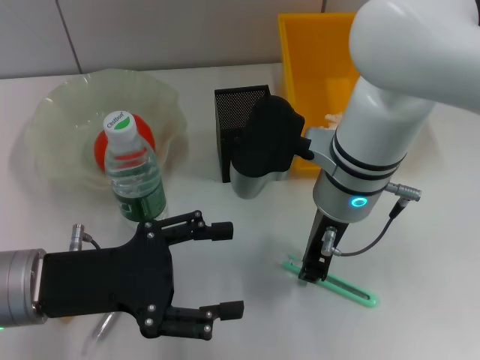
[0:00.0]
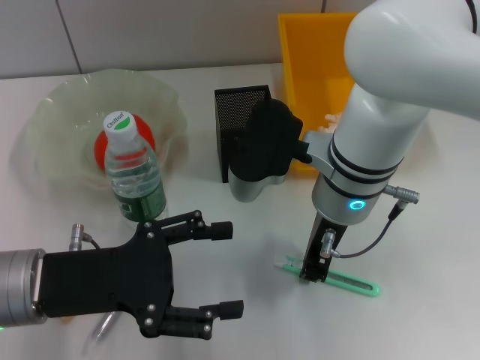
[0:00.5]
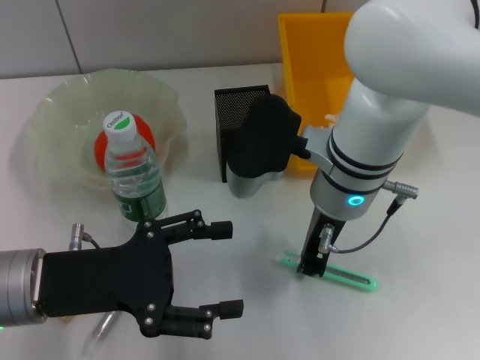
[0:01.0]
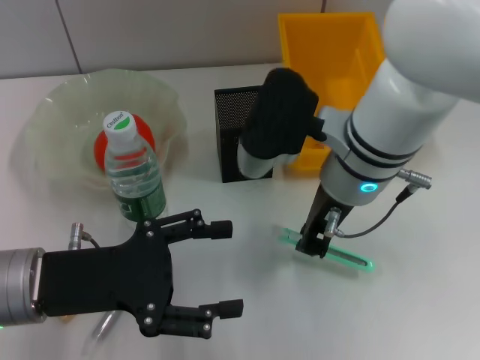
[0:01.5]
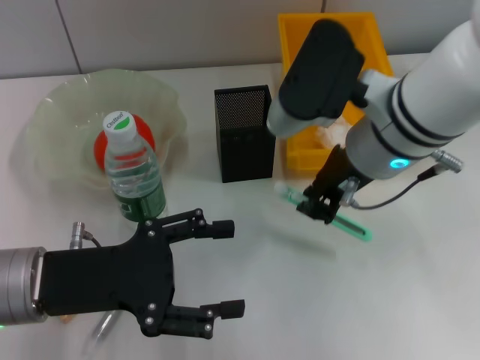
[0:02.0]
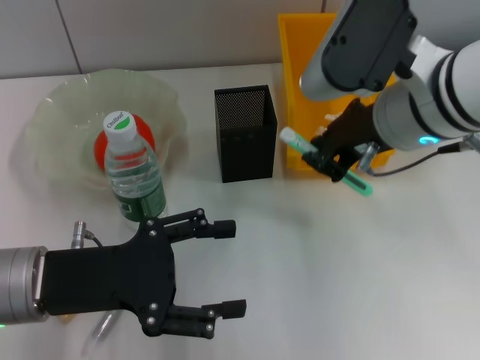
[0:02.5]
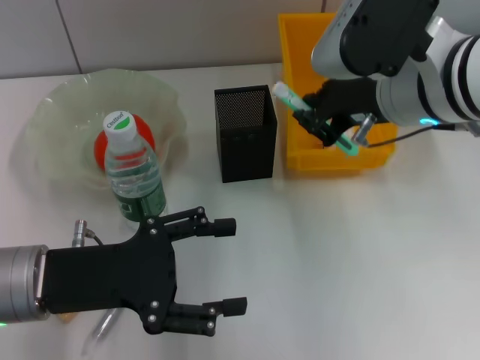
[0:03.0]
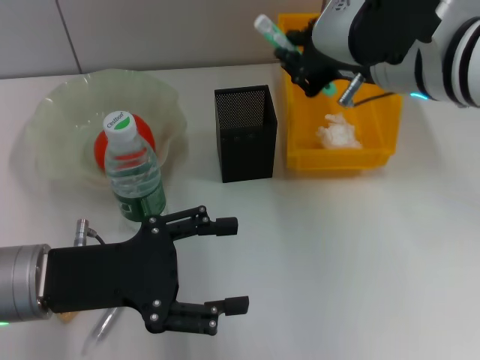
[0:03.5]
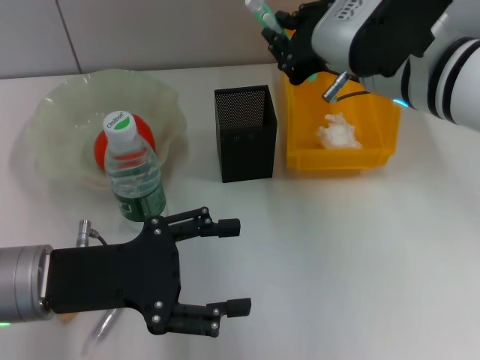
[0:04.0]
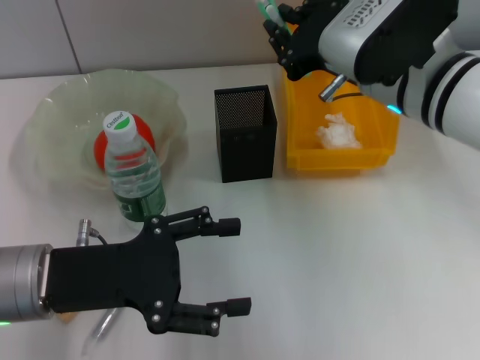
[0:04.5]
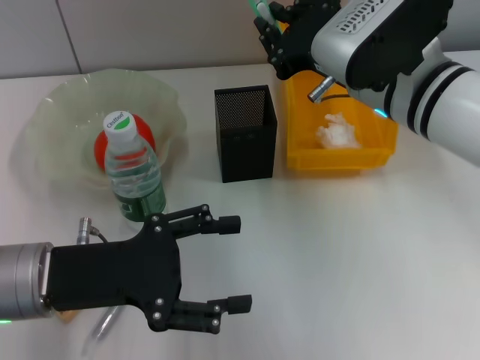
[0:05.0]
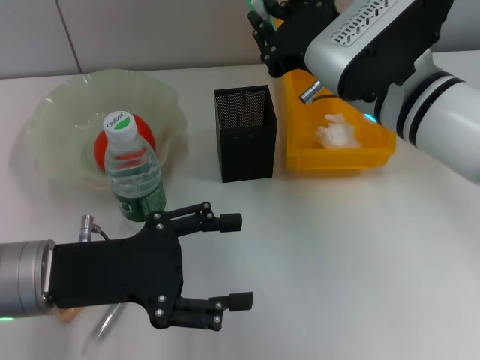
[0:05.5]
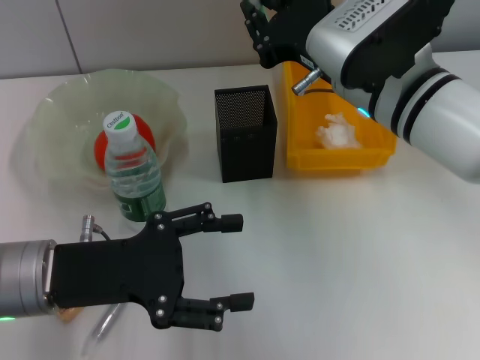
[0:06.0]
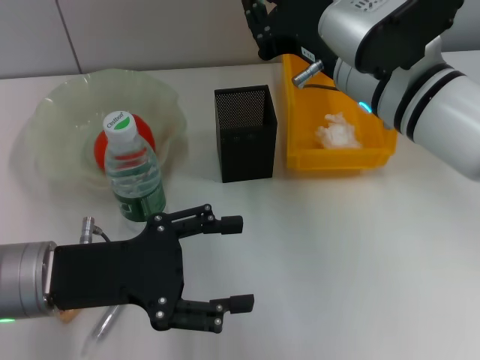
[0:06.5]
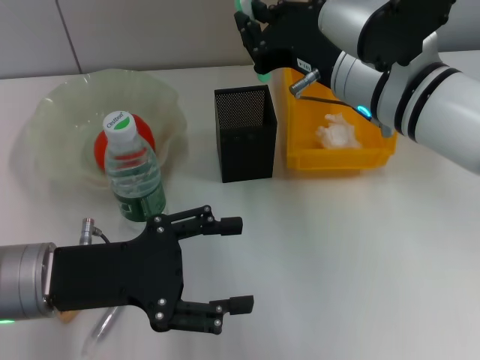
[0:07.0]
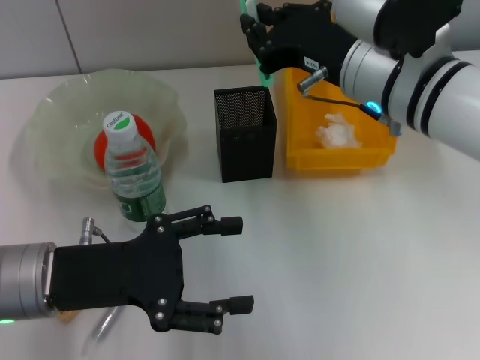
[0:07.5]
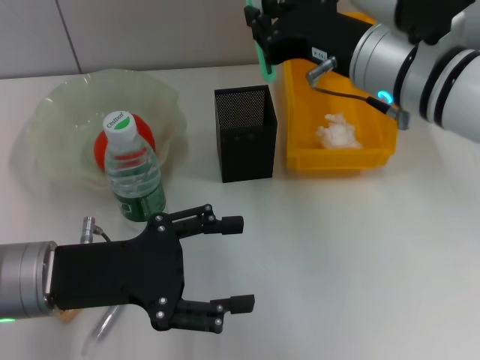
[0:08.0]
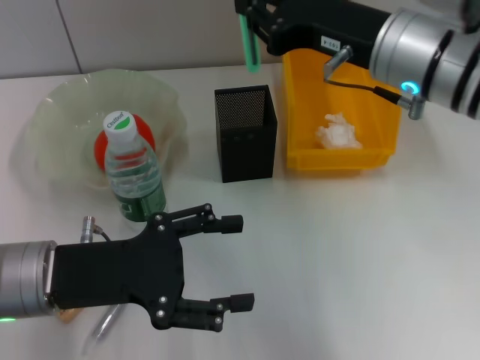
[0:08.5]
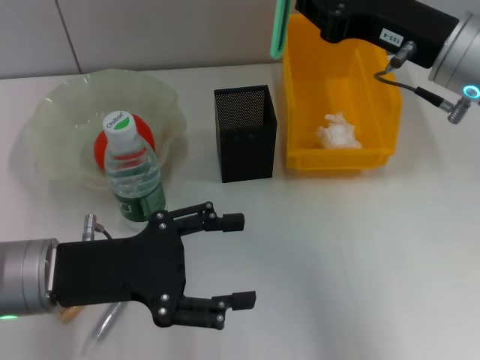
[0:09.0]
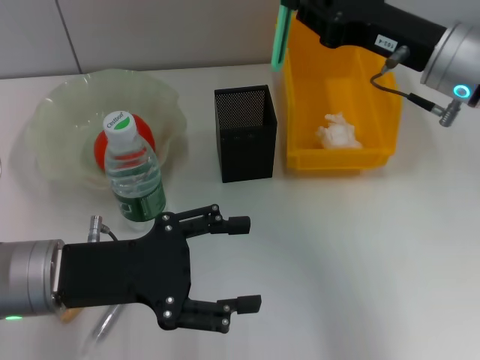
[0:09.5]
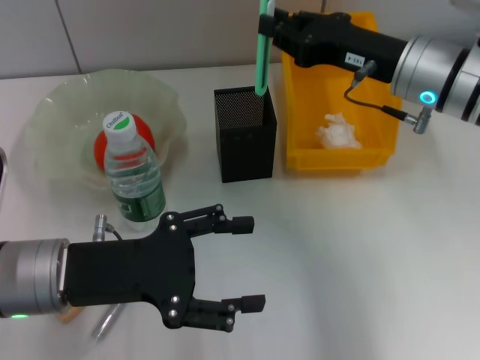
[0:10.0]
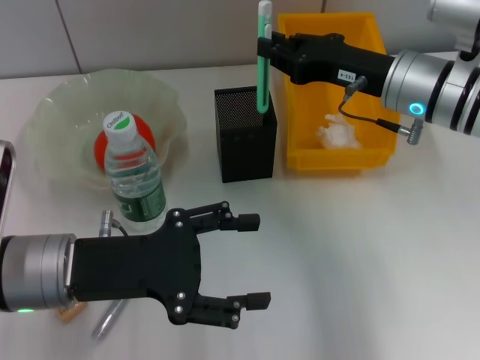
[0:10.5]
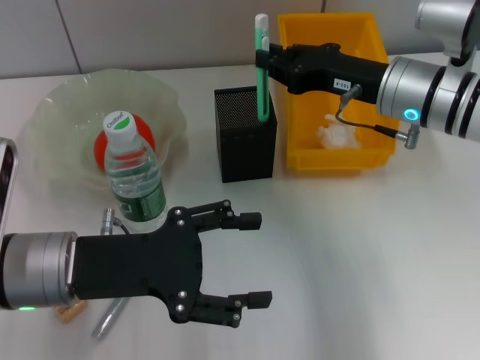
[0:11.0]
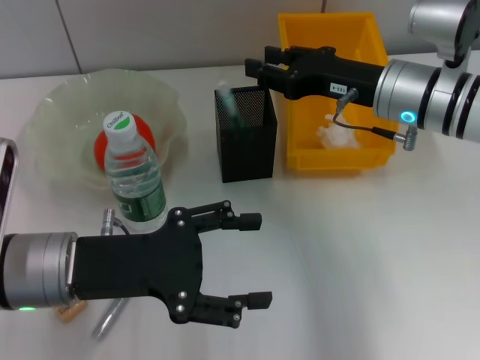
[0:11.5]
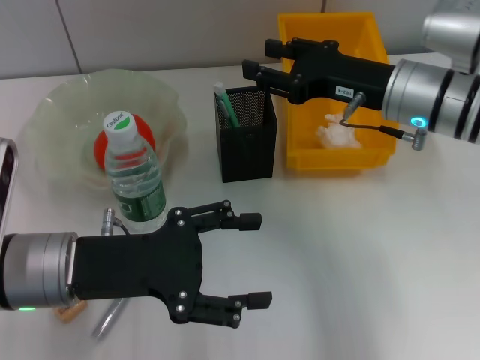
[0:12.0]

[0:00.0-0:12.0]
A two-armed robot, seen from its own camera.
Step, 0:00.5 to 0:11.5: Place the blue utility knife into the pen holder with the right hand.
0:00.0 to 0:02.0: The right gripper is displaced upward by roughly 5 cm.
0:04.0 to 0:06.0: There are only small adjustments of the grippers.
0:06.0 to 0:08.0: The grippers make only small movements.
0:08.0 to 0:10.0: The right gripper heads to the right, covering roughly 5 cm.
0:10.0 to 0:12.0: The right gripper opens its fingers.

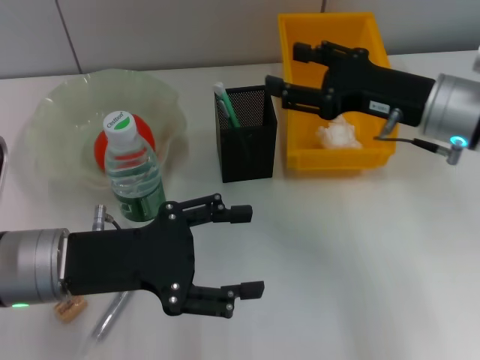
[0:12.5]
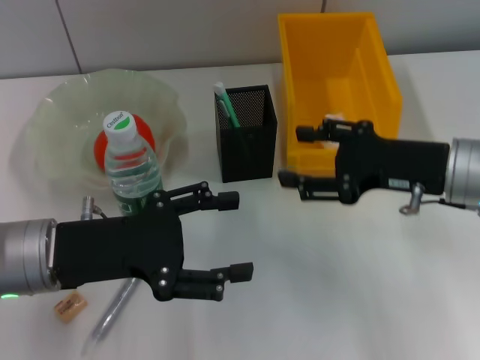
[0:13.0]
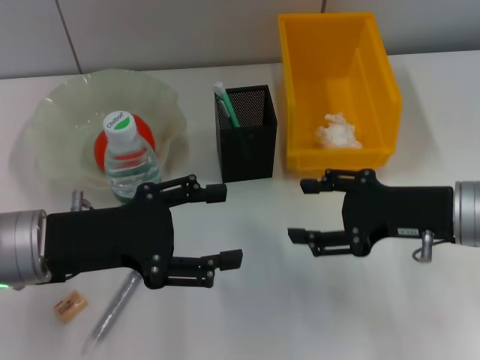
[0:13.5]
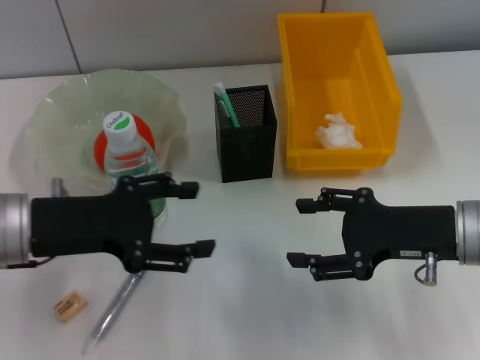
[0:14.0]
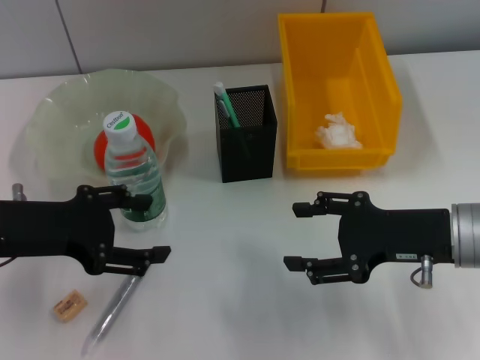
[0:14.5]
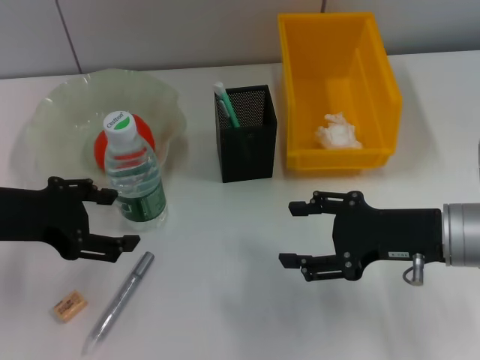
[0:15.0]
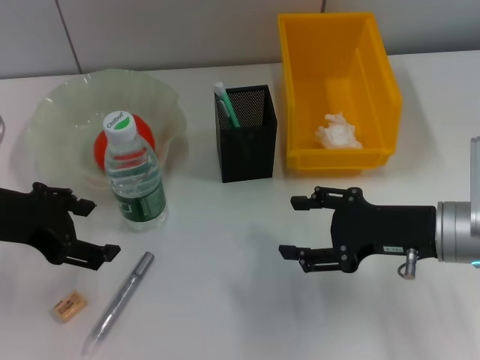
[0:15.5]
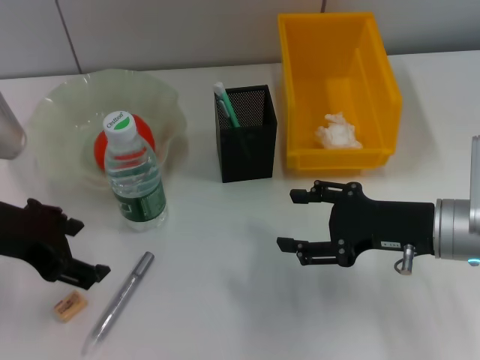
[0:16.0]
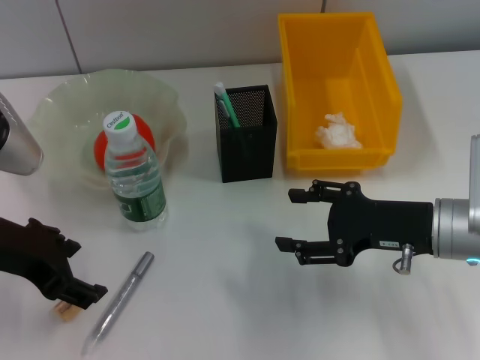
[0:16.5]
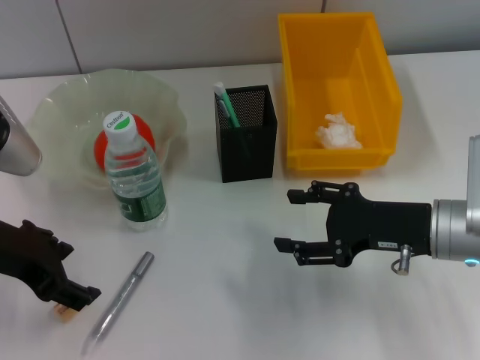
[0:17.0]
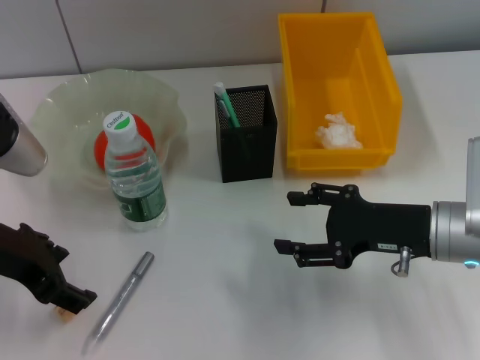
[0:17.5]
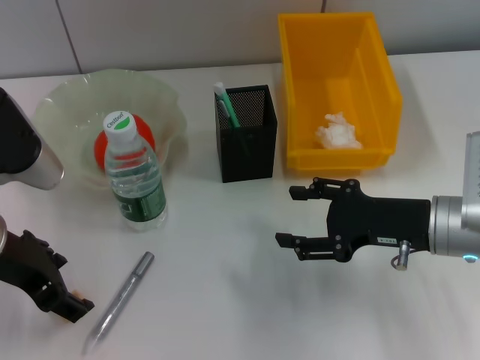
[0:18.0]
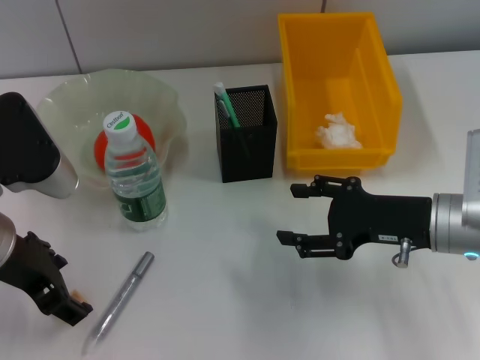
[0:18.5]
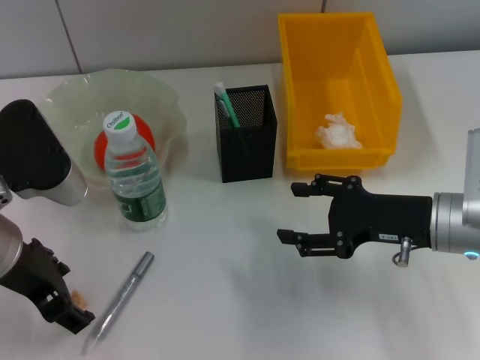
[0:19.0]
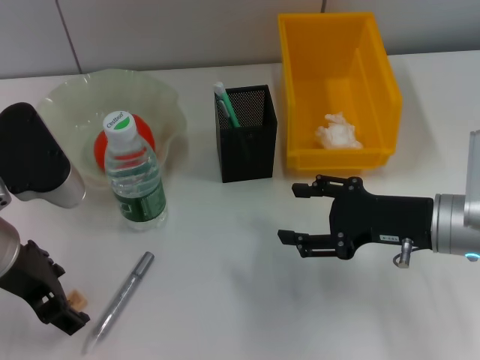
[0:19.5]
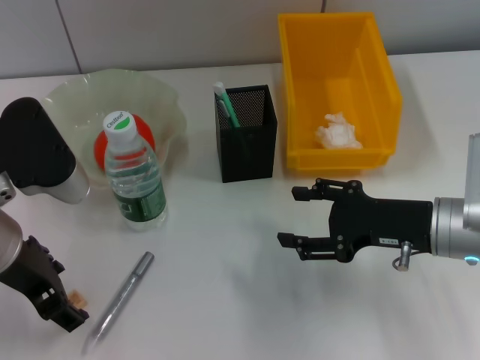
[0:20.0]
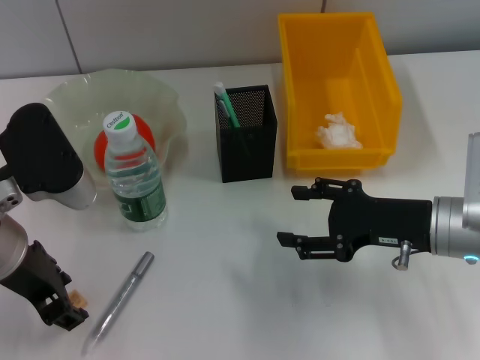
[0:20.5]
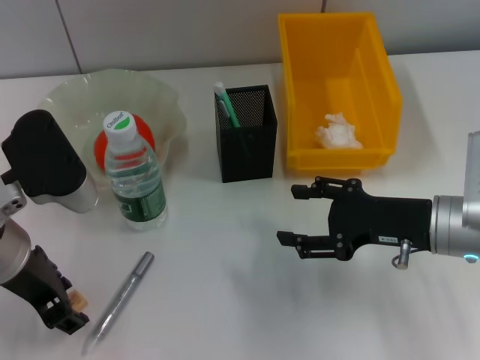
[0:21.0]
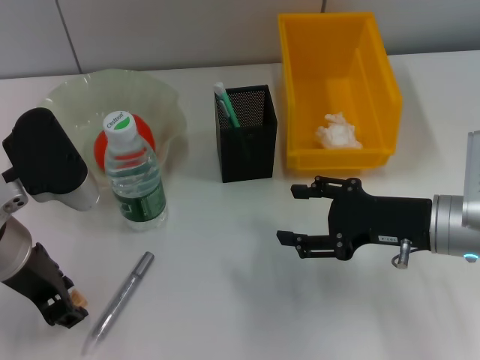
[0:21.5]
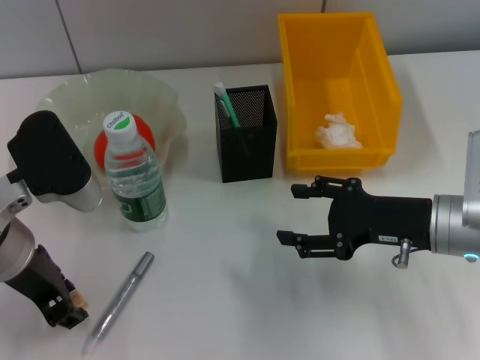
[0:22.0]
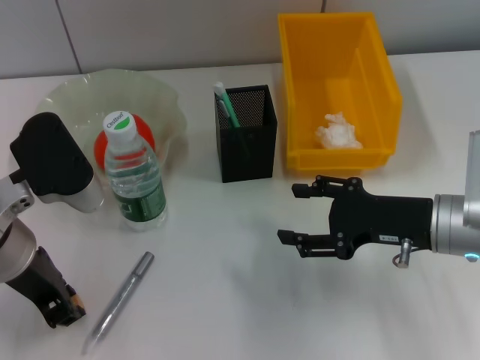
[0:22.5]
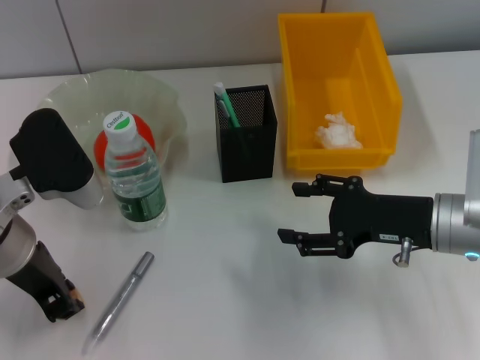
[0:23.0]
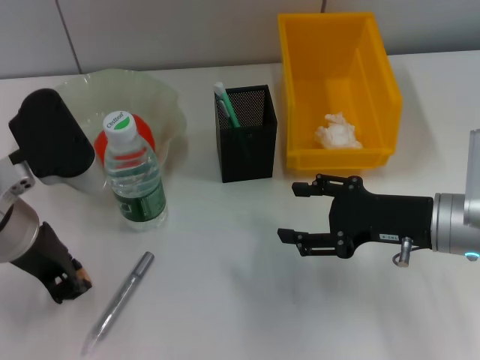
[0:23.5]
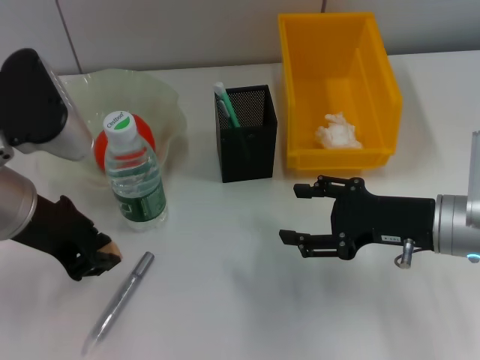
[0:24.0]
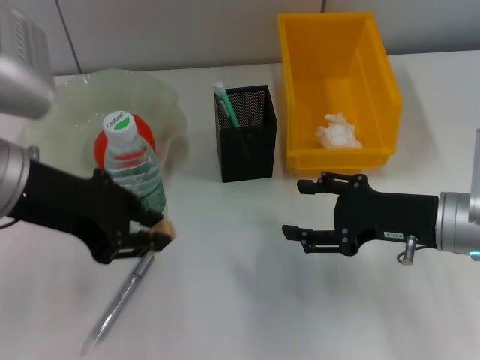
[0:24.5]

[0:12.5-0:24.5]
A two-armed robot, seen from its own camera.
Step, 0:12.5 to 0:22.5: Grab the eraser with the left hand.
0:12.5 to 0:14.5: The left gripper moves to the left, some 5 cm; the right gripper is displaced backward by approximately 10 cm.
0:16.5 to 0:18.5: The grippers move only a little.
0:18.5 to 0:20.5: Both grippers stay put.
0:20.5 to 0:22.5: The left gripper closes its fingers.
0:22.5 to 0:24.5: The left gripper shifts about 10 cm upward.

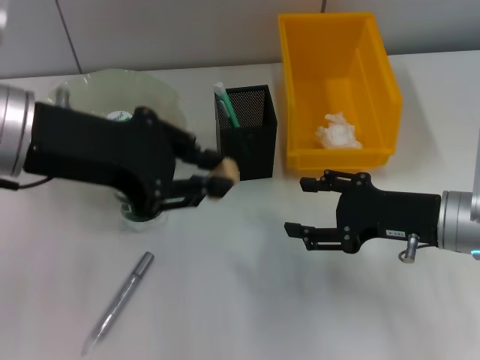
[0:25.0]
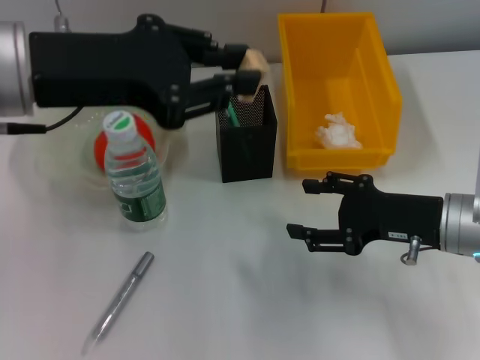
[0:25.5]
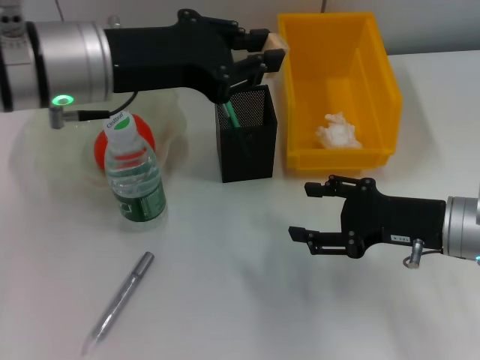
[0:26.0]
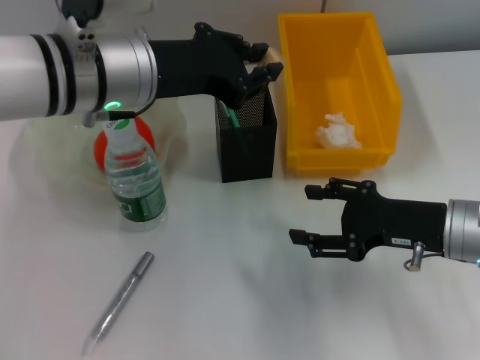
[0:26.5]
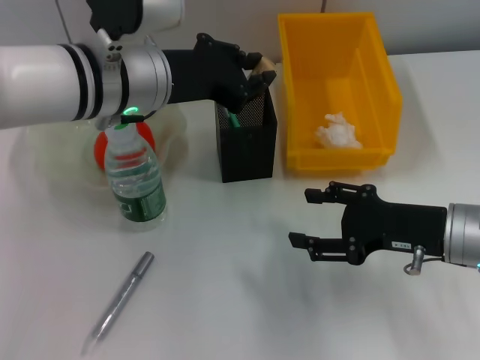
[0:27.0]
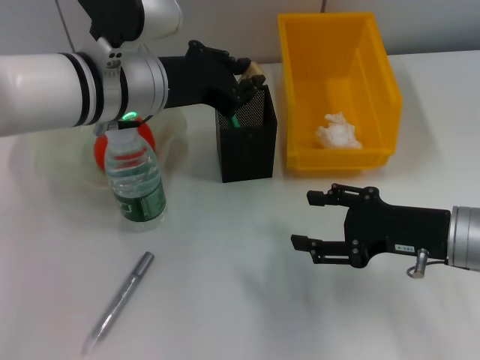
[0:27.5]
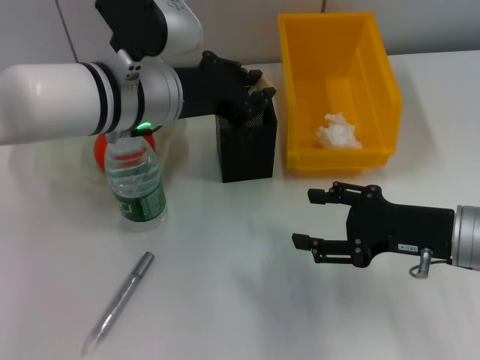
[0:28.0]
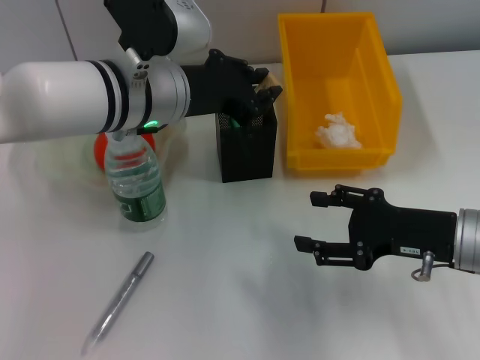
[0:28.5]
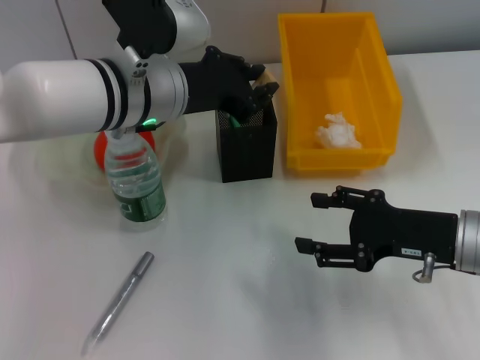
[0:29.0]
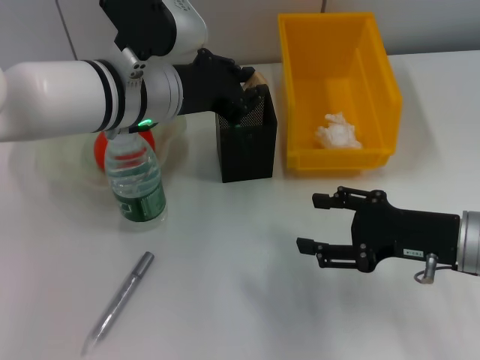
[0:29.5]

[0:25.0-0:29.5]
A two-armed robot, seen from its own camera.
0:25.0 to 0:27.0: The left gripper travels forward, to the right and downward by approximately 15 cm.
0:27.0 to 0:29.5: The grippers make only small movements.
